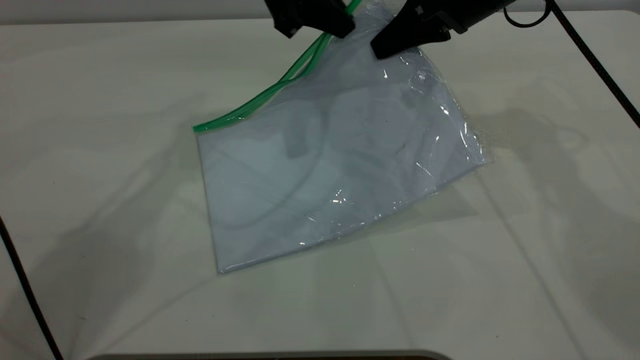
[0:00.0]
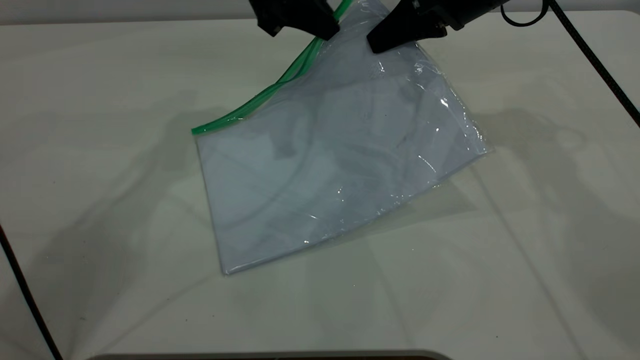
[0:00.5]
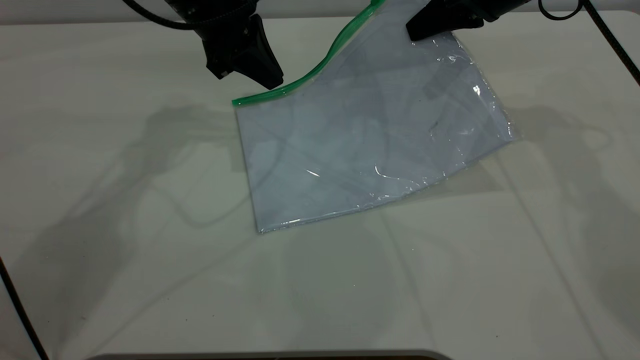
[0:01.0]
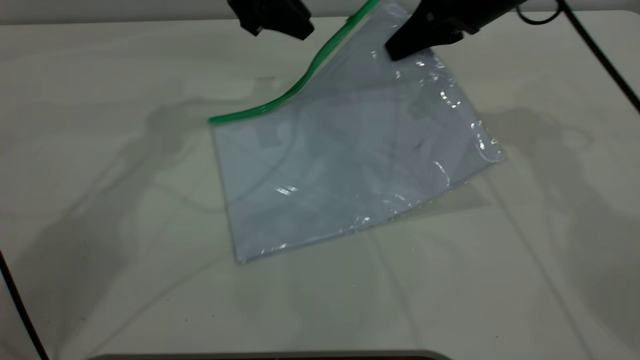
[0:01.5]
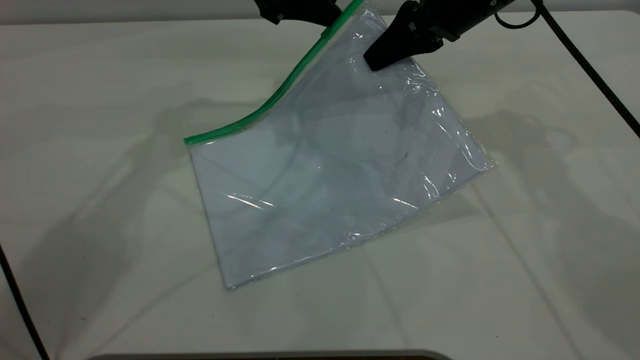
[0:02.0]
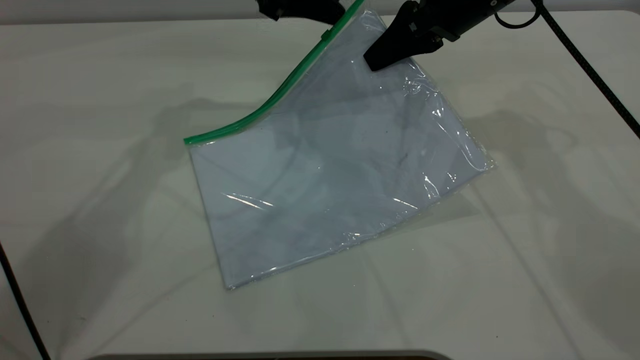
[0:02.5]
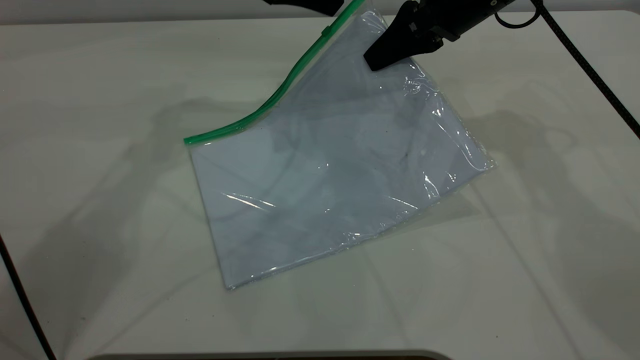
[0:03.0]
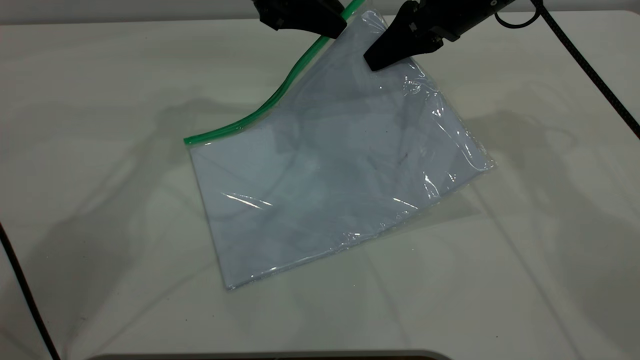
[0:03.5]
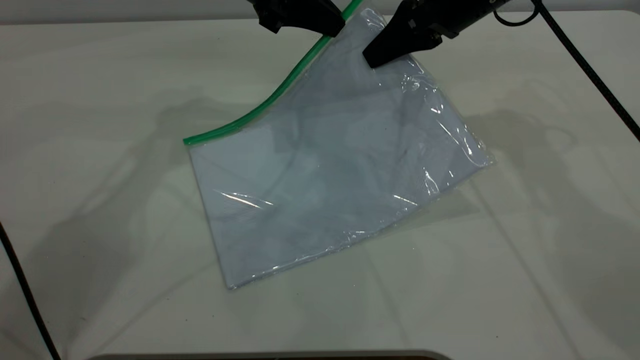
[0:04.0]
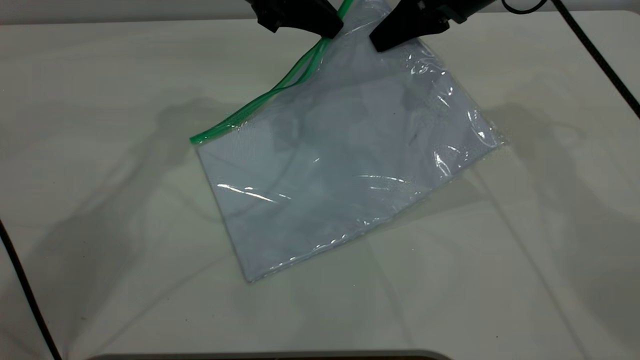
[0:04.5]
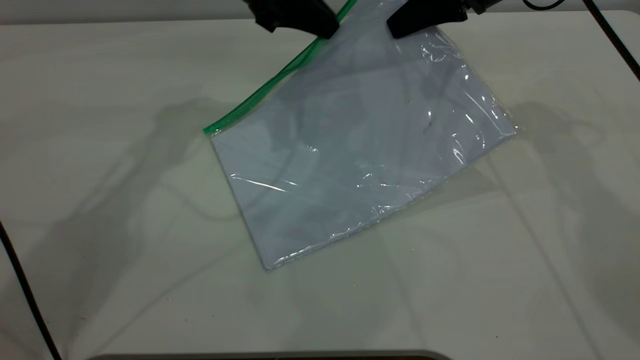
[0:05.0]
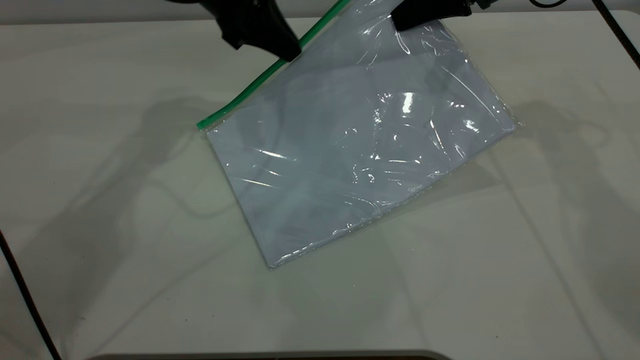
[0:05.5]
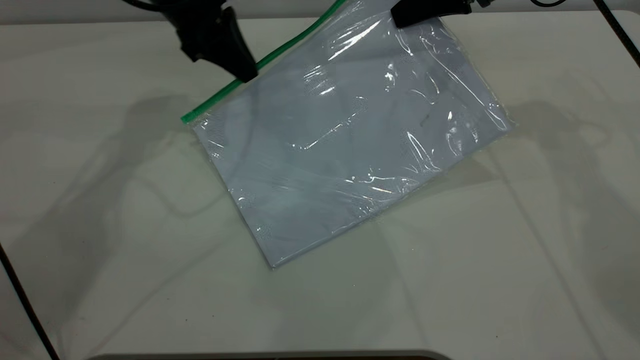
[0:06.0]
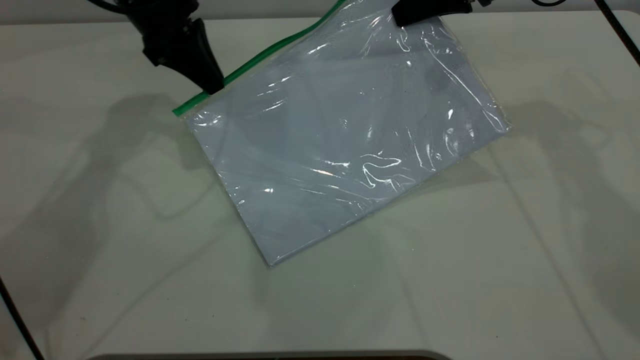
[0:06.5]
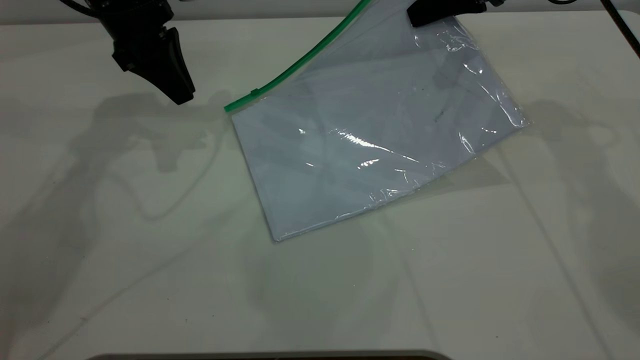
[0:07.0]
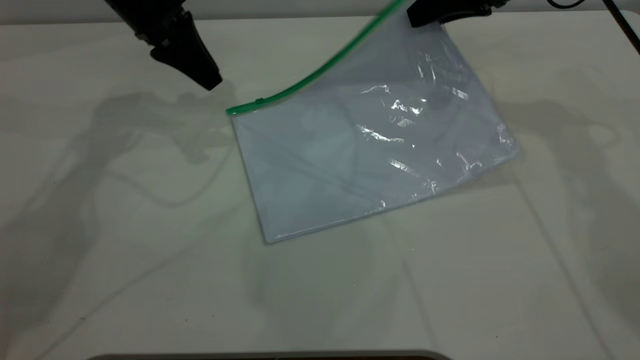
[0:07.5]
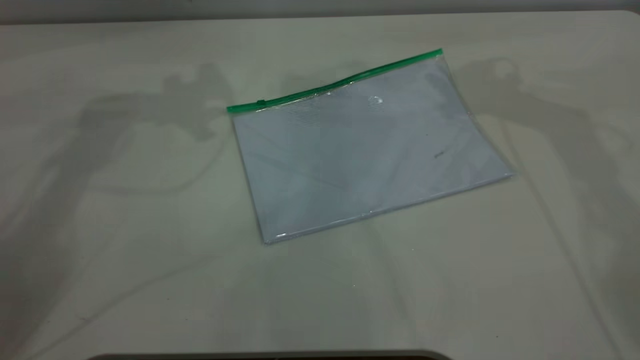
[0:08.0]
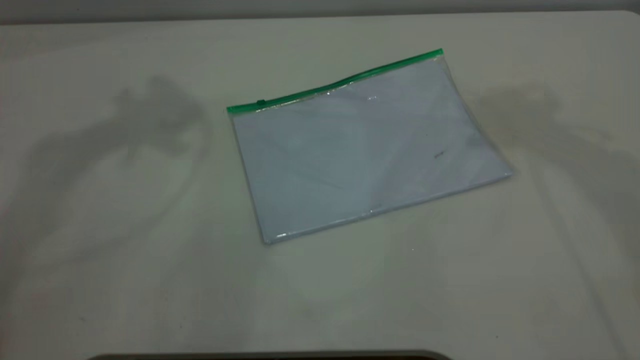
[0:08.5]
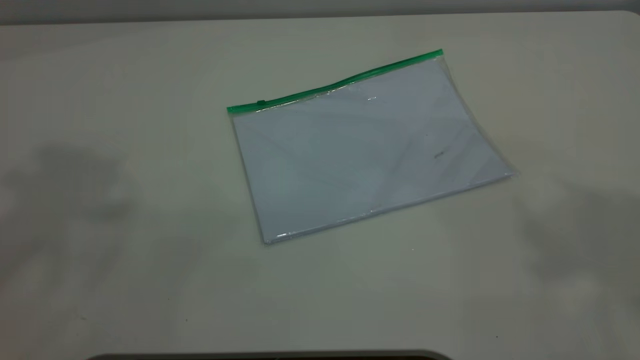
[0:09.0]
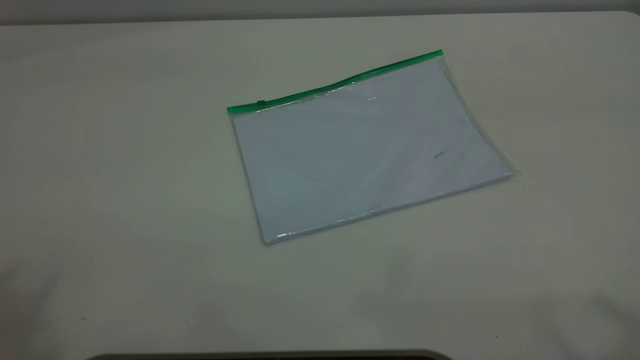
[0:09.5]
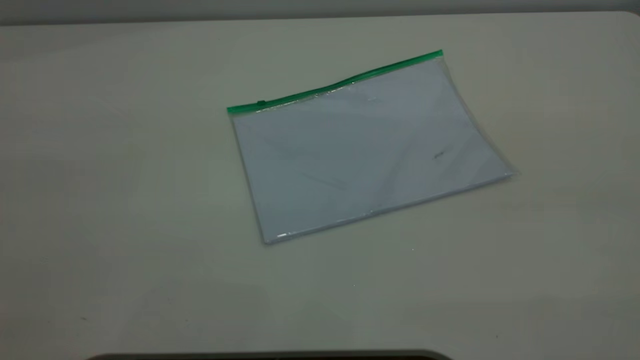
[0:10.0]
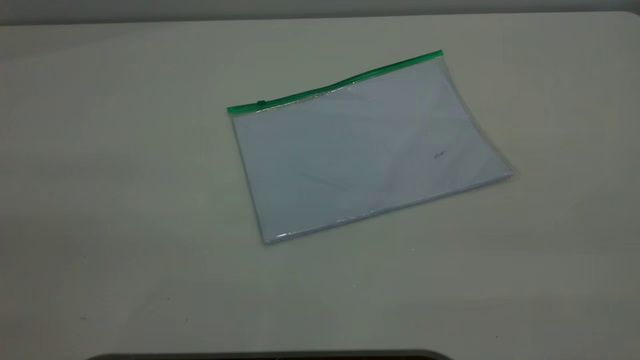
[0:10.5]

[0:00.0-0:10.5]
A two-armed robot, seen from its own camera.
Step, 0:00.0 to 0:06.5: Pulling up the zipper on the transparent plastic bag with the left gripper to close it.
Step, 0:07.0 to 0:07.5: Place the transparent plastic bag.
0:00.0 to 0:02.0: The left gripper opens.
0:02.0 to 0:04.0: The left gripper closes.
0:04.0 to 0:06.5: The left gripper moves to the left, about 10 cm.
0:06.5 to 0:08.5: Both grippers travel together upward, about 30 cm. The left gripper opens up, while the right gripper opens its fingers.
